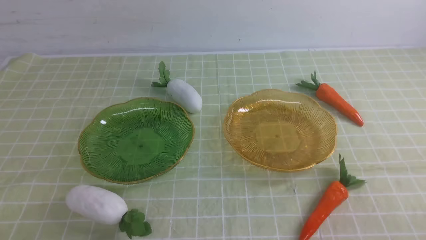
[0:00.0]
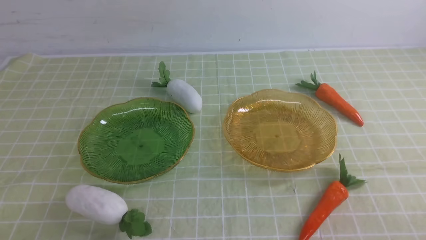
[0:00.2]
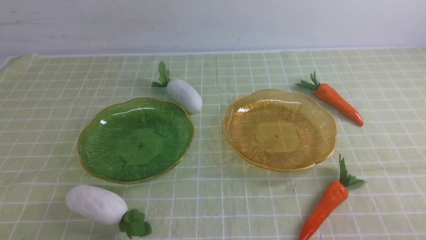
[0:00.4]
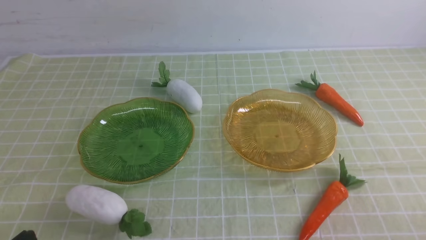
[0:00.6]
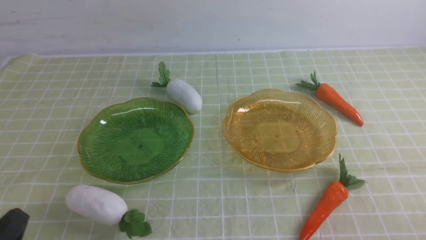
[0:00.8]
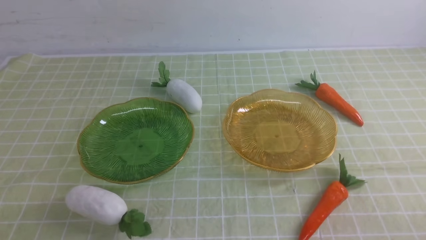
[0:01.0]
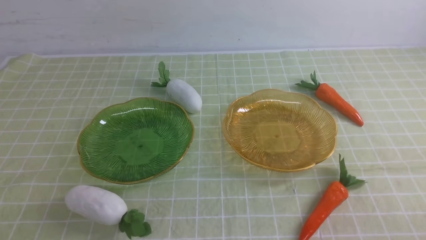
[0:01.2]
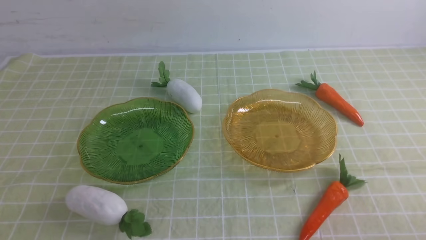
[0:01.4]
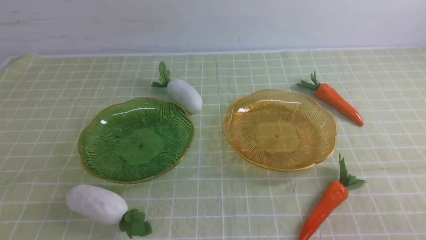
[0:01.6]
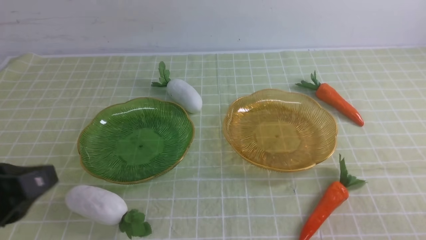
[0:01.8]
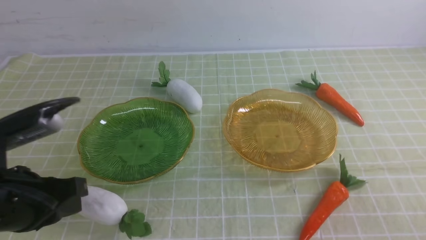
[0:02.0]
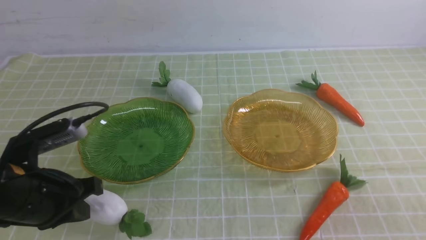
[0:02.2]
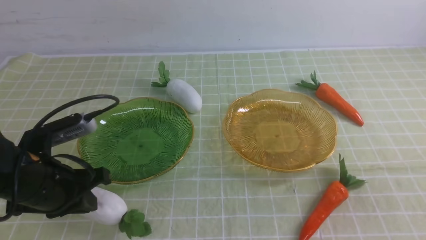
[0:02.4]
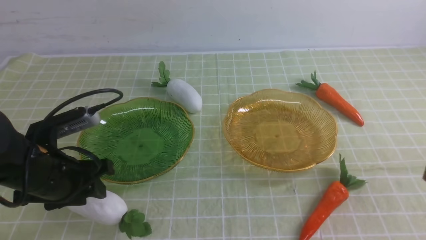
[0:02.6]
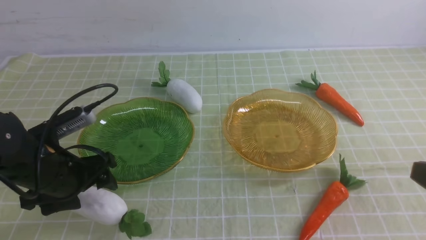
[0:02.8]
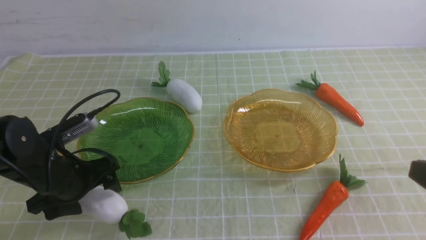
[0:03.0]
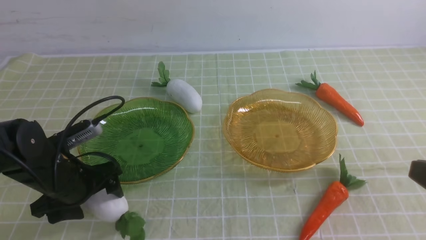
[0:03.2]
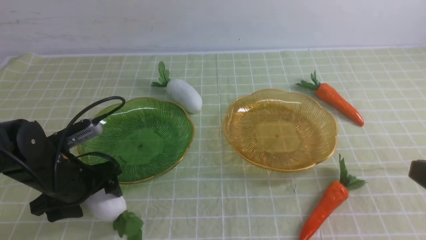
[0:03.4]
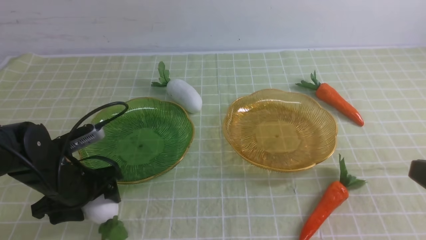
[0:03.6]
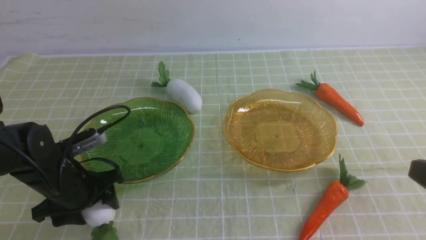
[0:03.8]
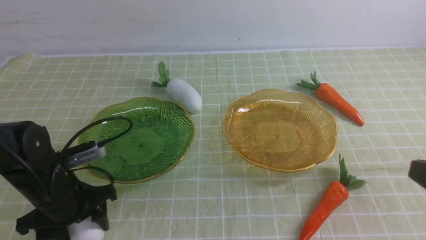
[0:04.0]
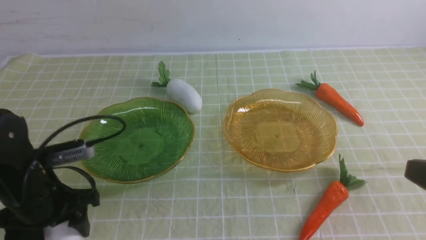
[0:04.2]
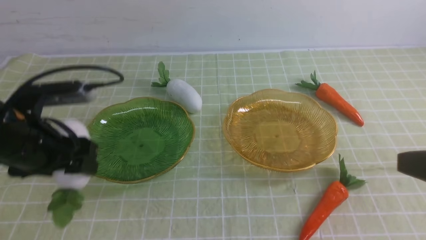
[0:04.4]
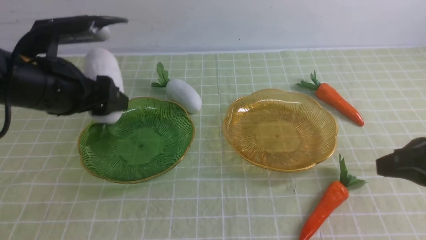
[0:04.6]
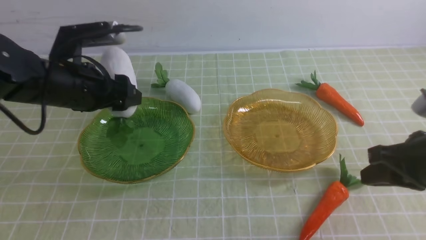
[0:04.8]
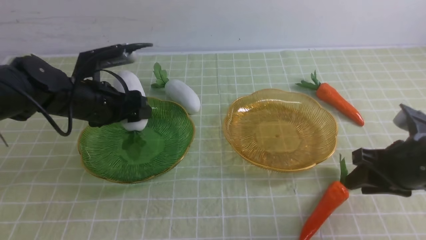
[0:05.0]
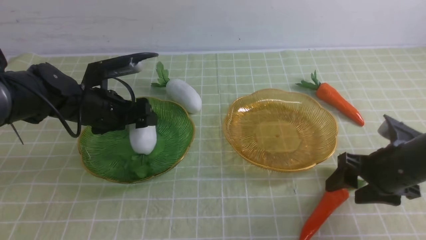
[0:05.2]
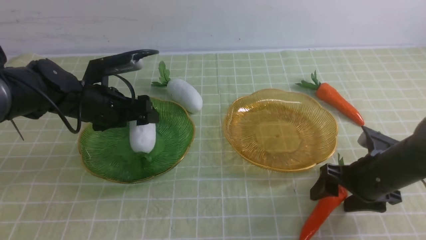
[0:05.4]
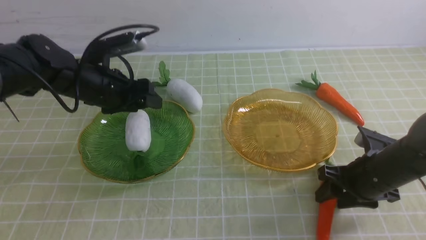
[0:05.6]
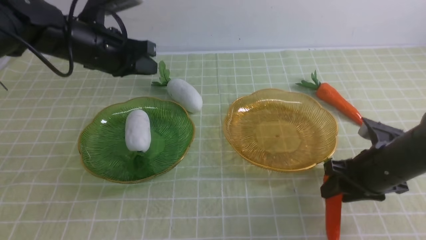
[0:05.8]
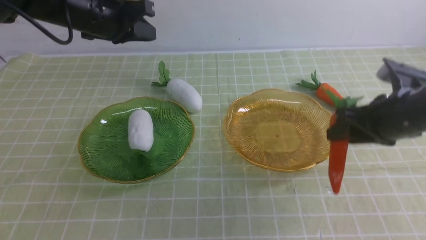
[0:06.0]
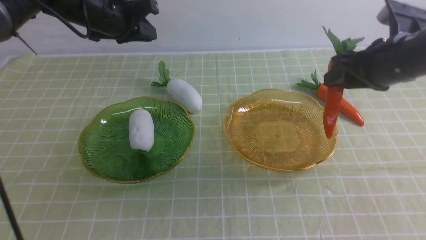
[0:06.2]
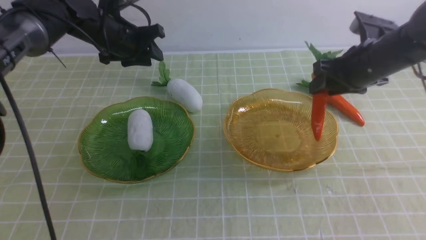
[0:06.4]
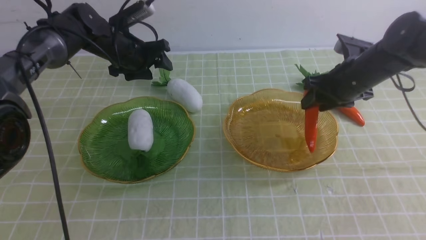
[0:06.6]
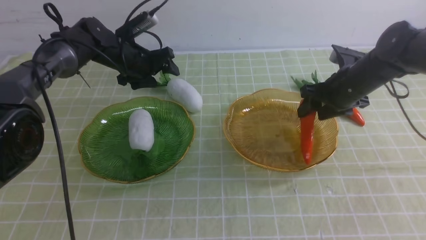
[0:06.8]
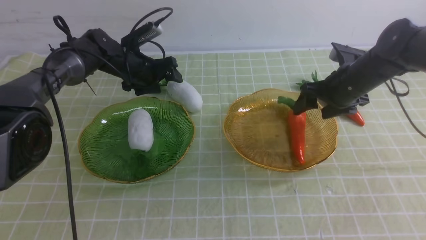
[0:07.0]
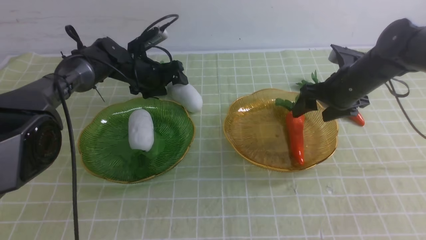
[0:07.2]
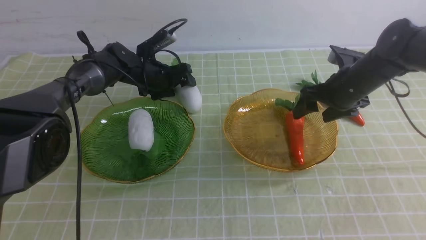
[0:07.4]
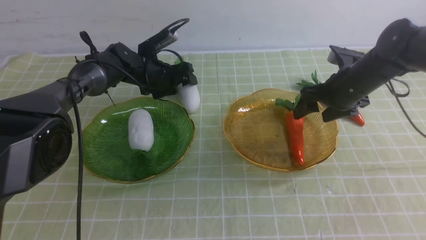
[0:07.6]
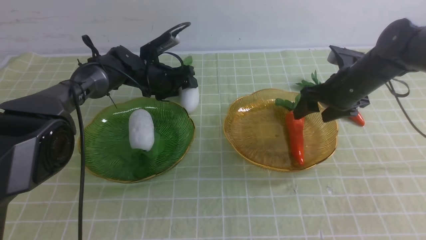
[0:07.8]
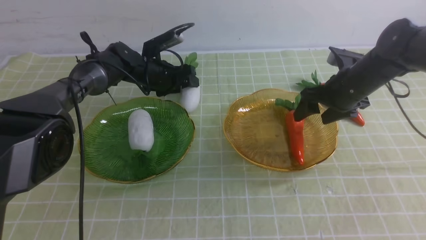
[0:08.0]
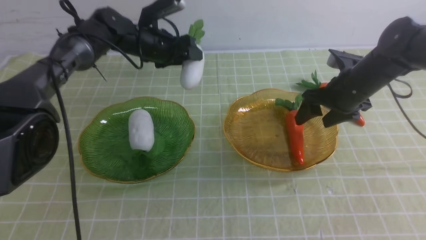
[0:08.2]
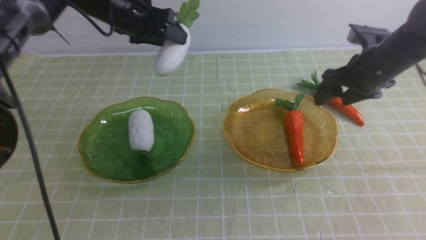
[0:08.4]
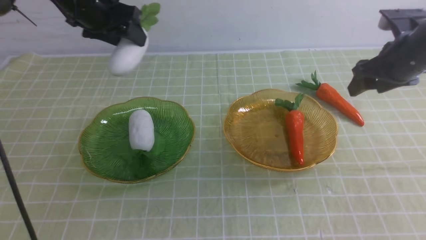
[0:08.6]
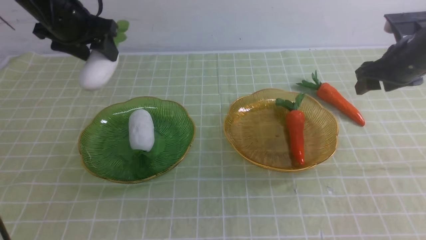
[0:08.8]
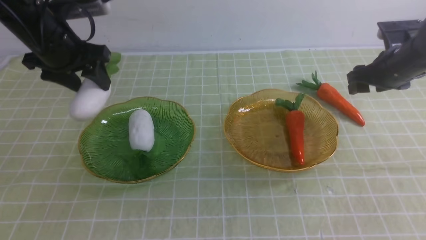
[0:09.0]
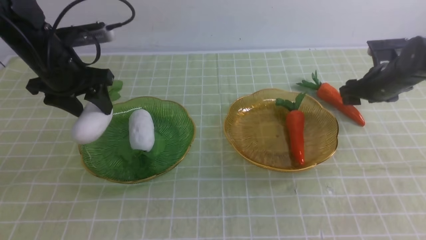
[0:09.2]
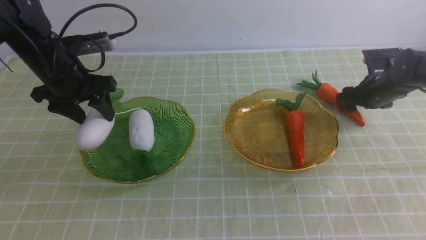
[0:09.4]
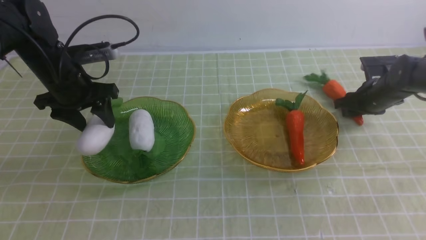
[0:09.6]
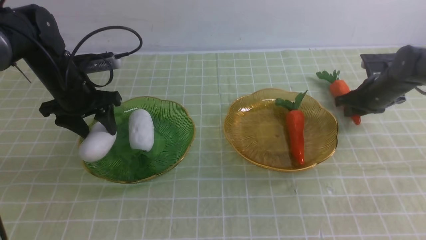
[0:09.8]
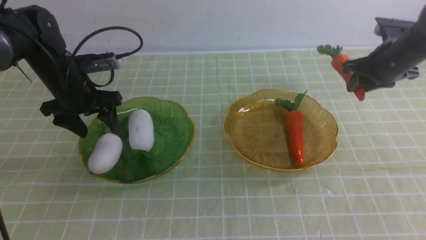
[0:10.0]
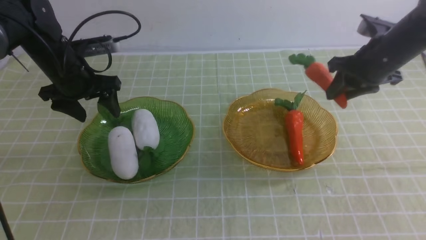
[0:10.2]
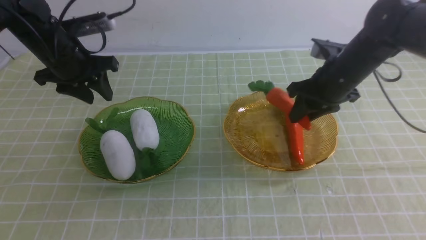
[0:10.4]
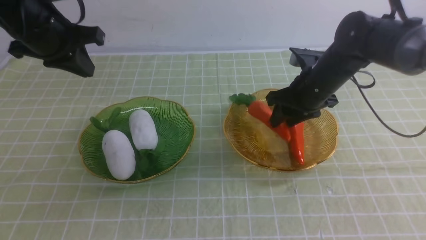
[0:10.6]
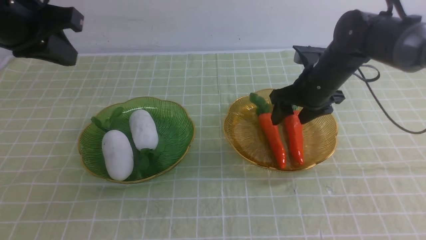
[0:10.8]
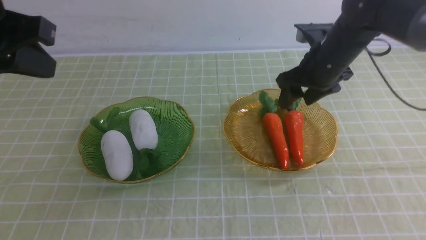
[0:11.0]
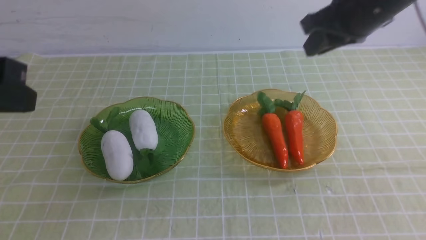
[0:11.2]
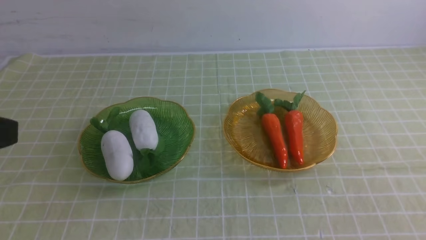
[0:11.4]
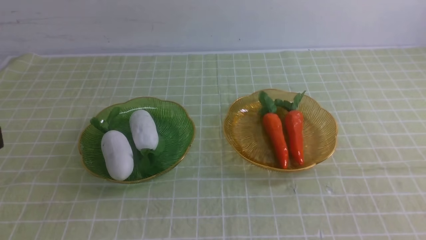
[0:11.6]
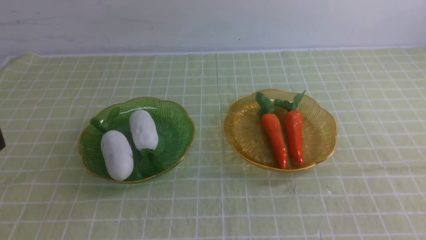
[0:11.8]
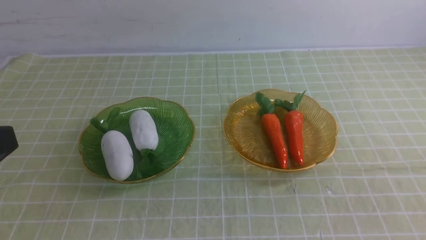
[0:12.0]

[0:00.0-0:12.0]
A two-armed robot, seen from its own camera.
Step, 0:00.0 to 0:05.2: use the left arm to grab a radish and put it into the left plate.
Step, 0:05.6 to 0:06.8: use the right arm to grab a carrot and put it into the right plate.
Step, 0:07.0 to 0:10.0: use the left arm to grab a radish and put it into the left plate.
Step, 0:10.2 to 0:11.6: use the right arm to grab a carrot and put it into the right plate.
0:01.6 to 0:03.0: The left gripper is displaced forward and downward by some 25 cm, and opens up.
0:03.0 to 0:04.4: The left gripper goes about 10 cm upward.
0:04.4 to 0:06.0: The grippers both shift forward by some 15 cm. The right gripper opens its fingers, while the left gripper closes.
0:06.0 to 0:07.6: The left gripper is displaced downward and forward by about 20 cm, and opens. Meanwhile the right gripper goes about 10 cm forward, and opens up.
0:07.6 to 0:09.0: The right gripper moves to the right, roughly 10 cm. The left gripper travels upward, backward and to the left by some 25 cm.
0:09.0 to 0:10.4: The right gripper is displaced to the left by roughly 10 cm, and closes. Meanwhile the left gripper moves roughly 10 cm downward and comes back.
0:10.4 to 0:12.0: The grippers both shift backward by roughly 40 cm. The left gripper closes its fingers. The right gripper closes up.

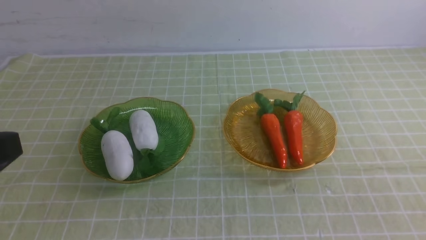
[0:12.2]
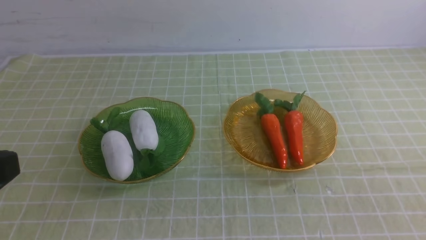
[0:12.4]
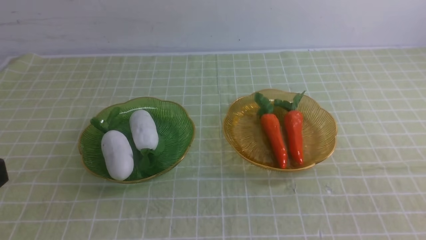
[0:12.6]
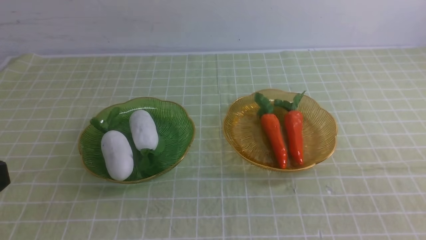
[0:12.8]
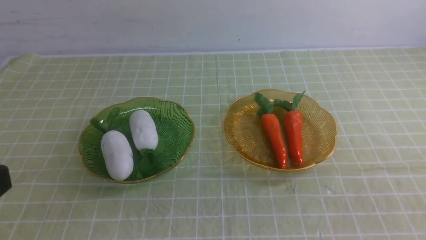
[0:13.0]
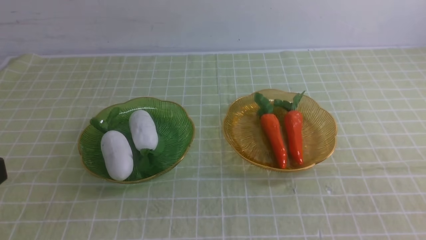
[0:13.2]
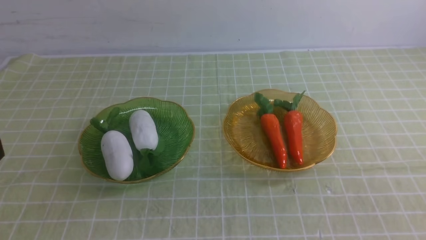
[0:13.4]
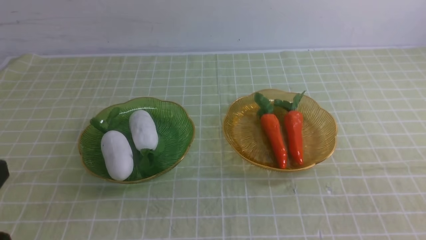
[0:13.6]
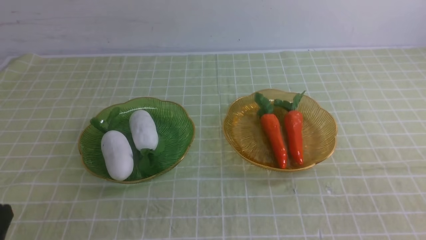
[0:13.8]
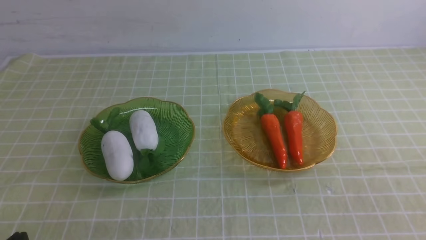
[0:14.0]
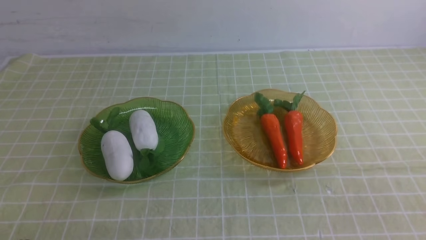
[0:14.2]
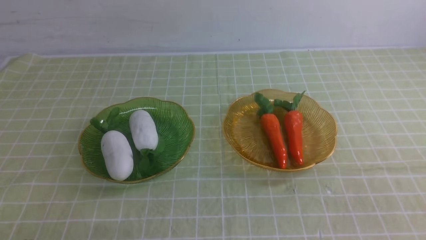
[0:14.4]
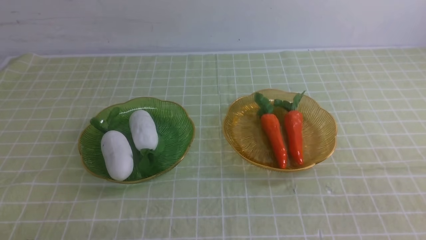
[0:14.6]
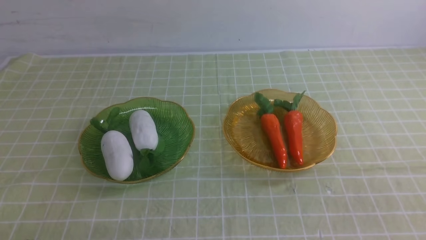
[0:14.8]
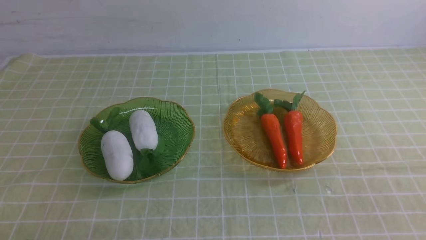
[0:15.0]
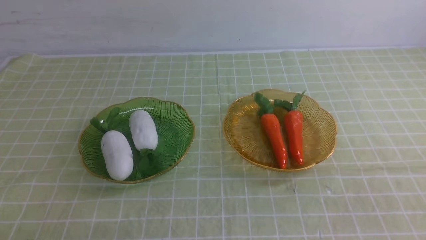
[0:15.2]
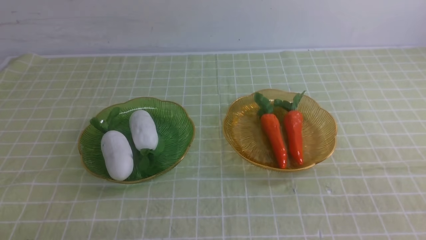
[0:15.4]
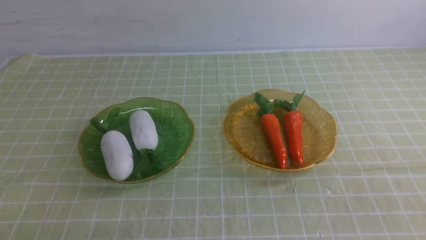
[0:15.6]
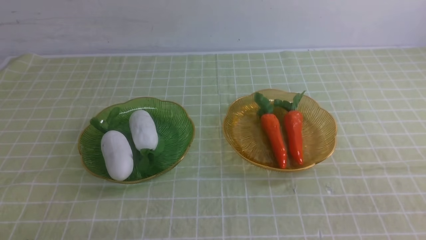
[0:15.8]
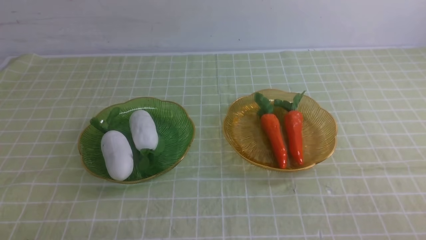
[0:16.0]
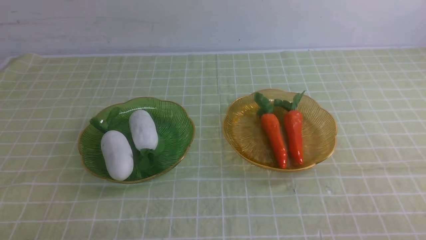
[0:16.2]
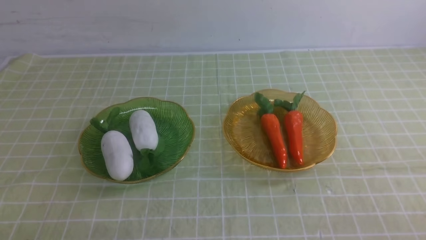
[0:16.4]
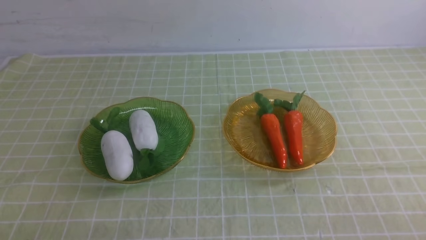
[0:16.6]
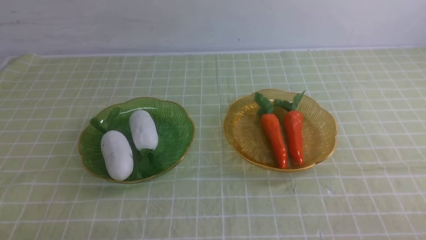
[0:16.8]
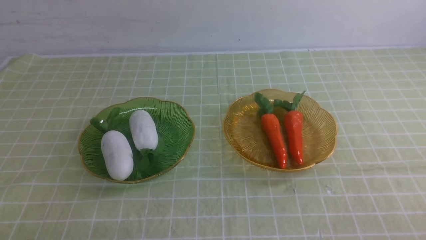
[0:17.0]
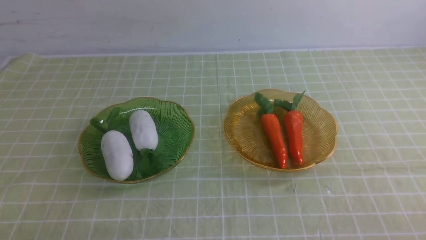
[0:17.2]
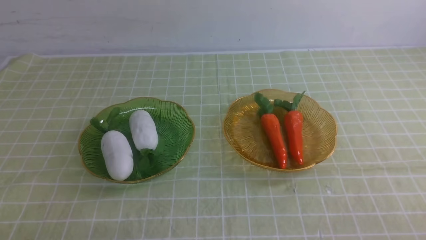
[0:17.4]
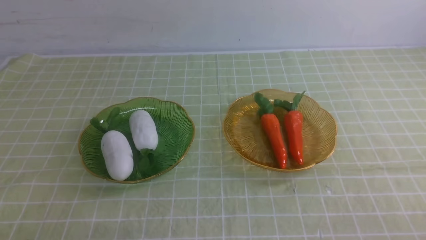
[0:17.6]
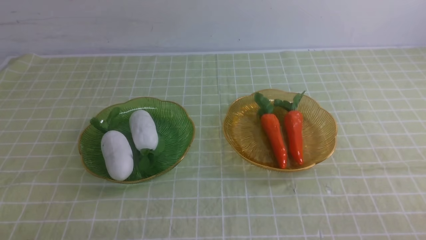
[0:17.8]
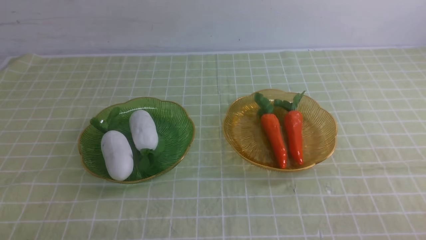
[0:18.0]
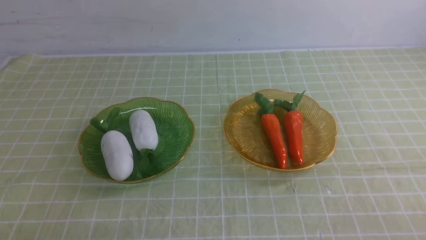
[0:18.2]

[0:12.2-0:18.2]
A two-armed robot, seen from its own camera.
0:12.2 to 0:13.8: The left gripper is displaced downward by about 15 cm.
0:16.6 to 0:18.2: Both grippers stay put.
